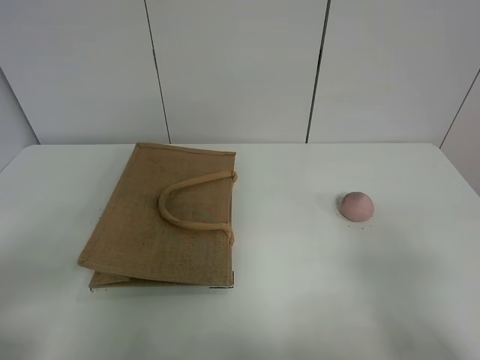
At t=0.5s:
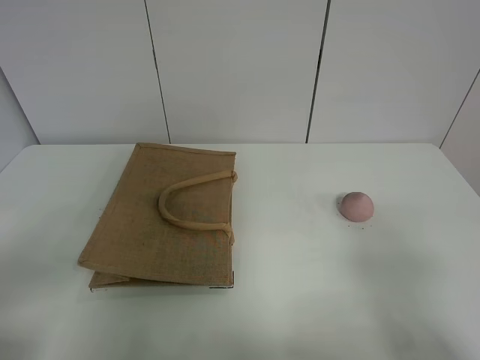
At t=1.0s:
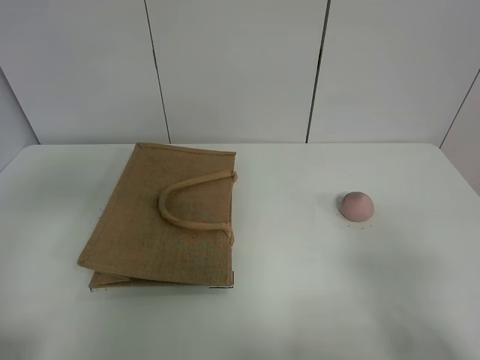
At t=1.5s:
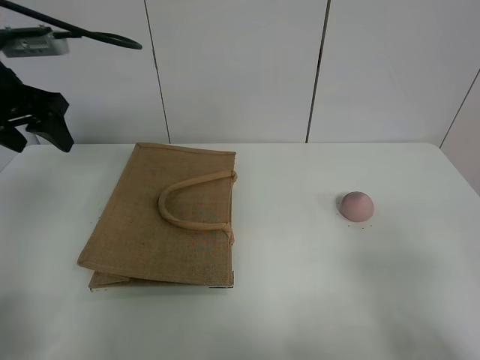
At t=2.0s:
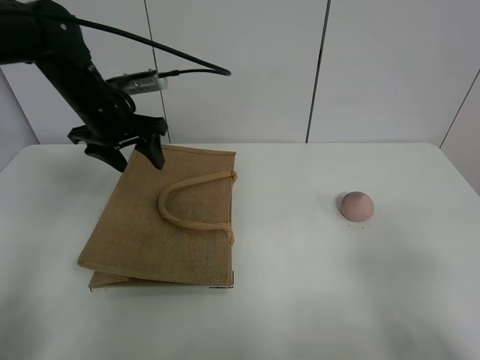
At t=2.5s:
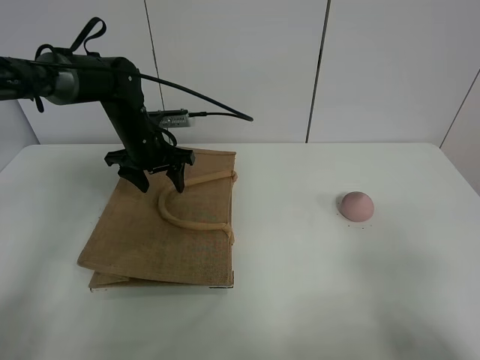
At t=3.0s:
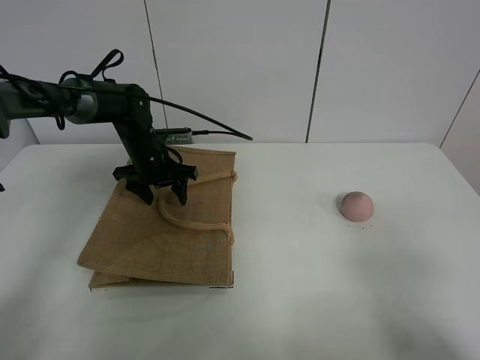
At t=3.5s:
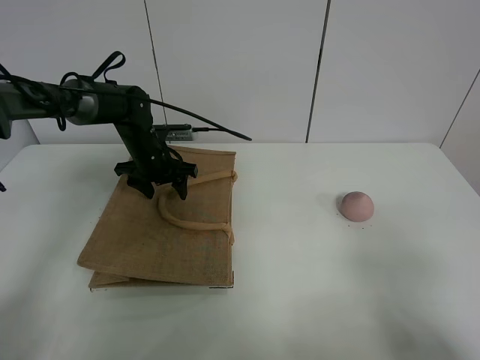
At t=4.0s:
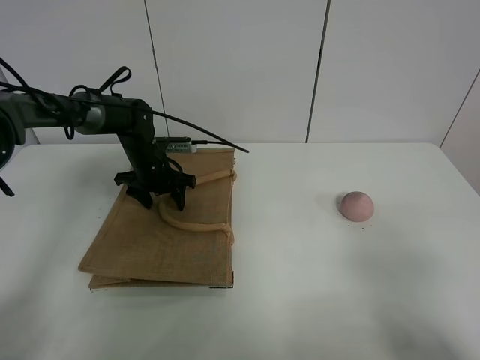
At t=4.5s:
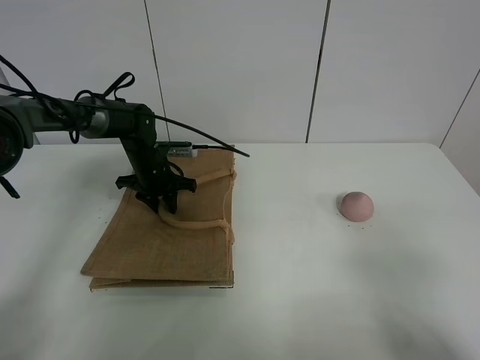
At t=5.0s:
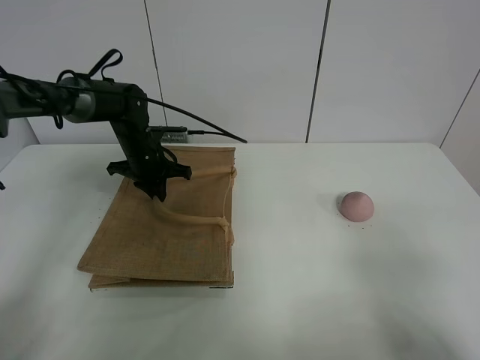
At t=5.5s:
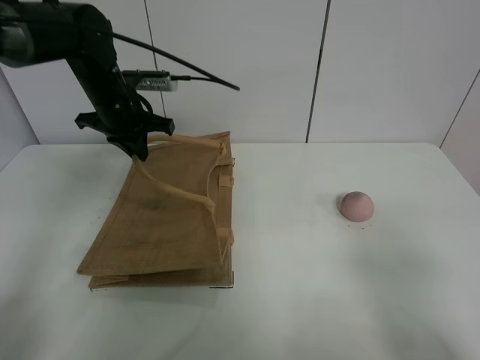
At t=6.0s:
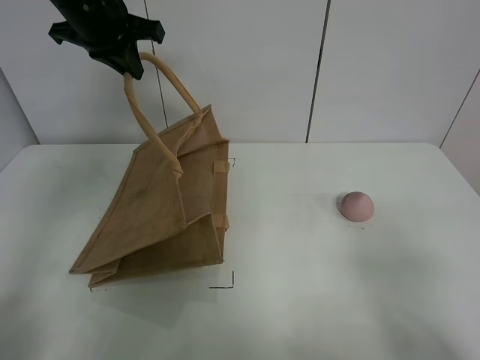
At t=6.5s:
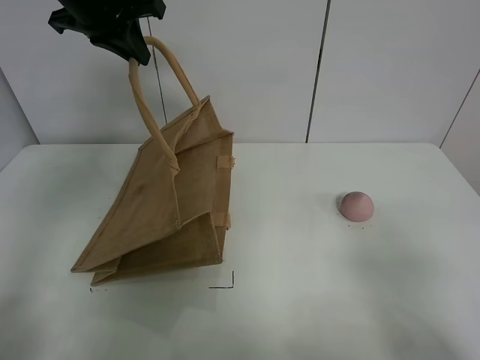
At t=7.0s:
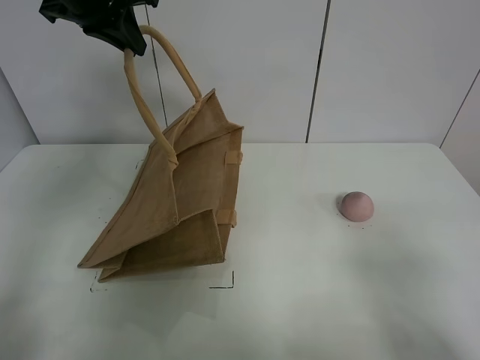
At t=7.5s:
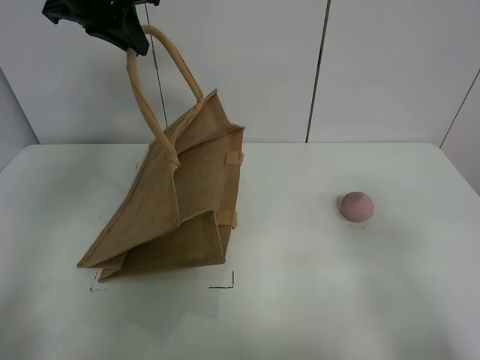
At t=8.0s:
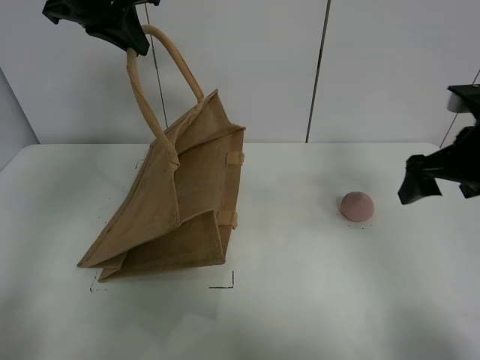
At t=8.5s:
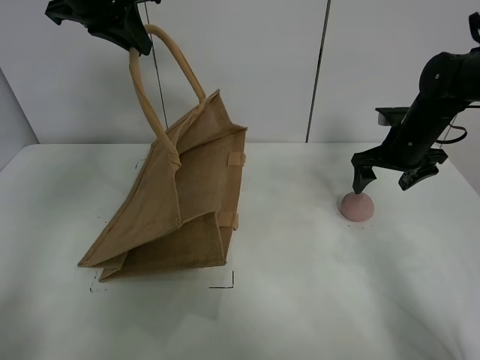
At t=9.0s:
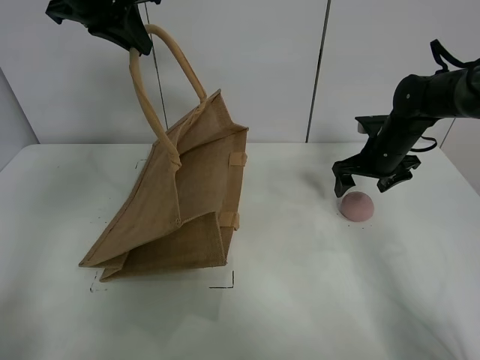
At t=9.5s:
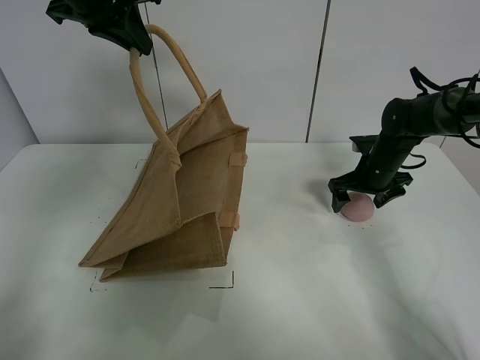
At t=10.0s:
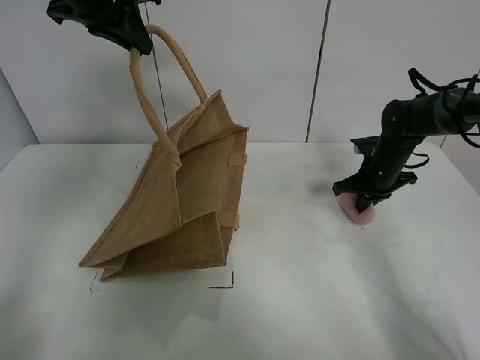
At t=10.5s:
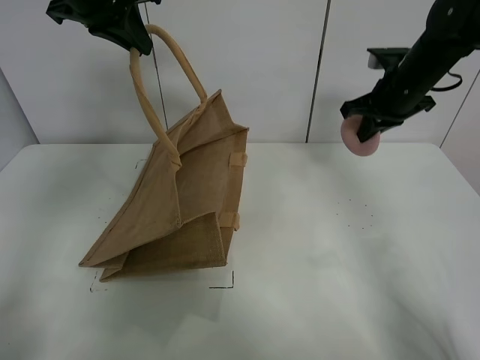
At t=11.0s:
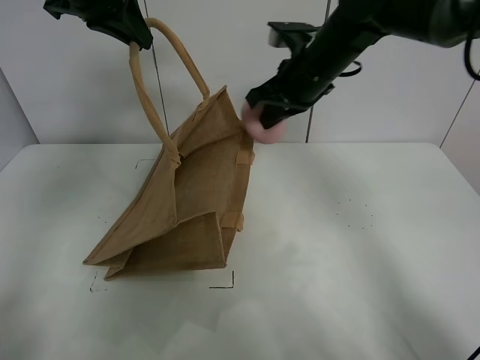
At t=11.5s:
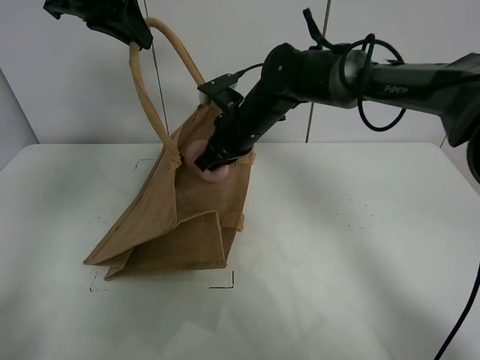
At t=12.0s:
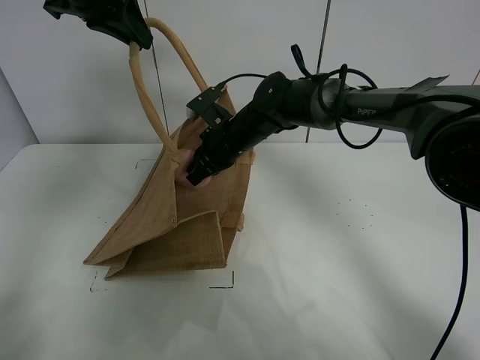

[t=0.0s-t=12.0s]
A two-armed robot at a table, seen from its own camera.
Task of the whole recording: open the brown linen bag and put the peach in the bag.
Step, t=0.0s to t=6.5s: Lift the handbag with left gripper.
Step, t=7.0s to t=10.0s: Grasp the peach with right gripper.
t=0.0s to t=2.0s: The left gripper moves forward, roughly 40 cm.
t=2.0s to t=4.0s: The left gripper shifts some 15 cm downward.
t=4.0s to t=6.0s: The left gripper goes about 30 cm upward, and closes up.
t=6.0s to t=8.0s: The right gripper heads forward, covering approximately 25 cm.
t=8.0s to t=10.0s: The right gripper goes some 25 cm forward and downward, and closes its fingers.
t=10.0s to t=12.0s: The right gripper shifts roughly 25 cm to the left.

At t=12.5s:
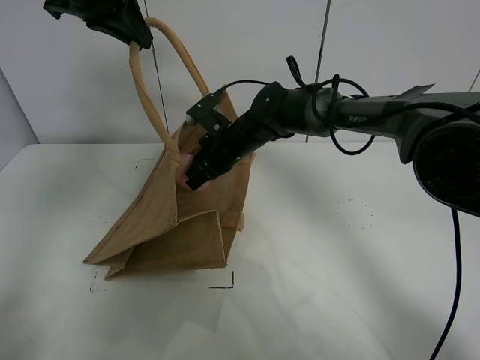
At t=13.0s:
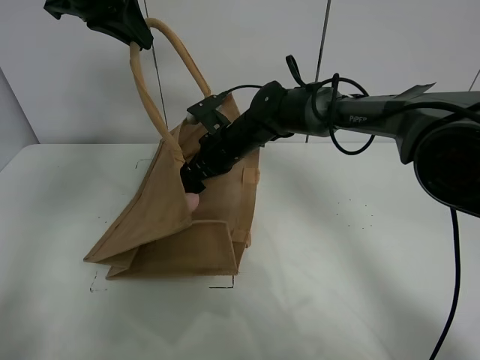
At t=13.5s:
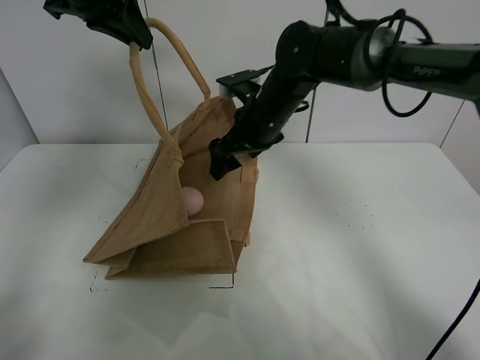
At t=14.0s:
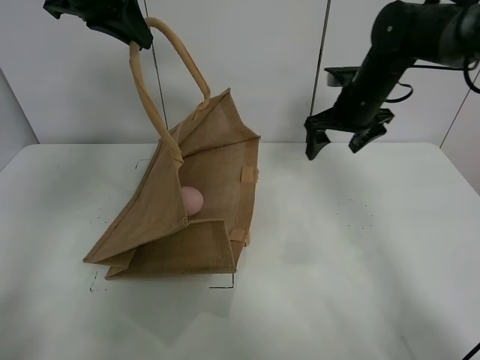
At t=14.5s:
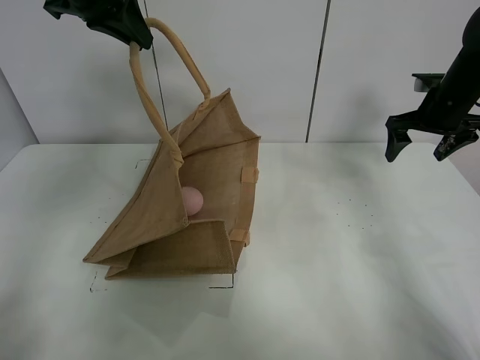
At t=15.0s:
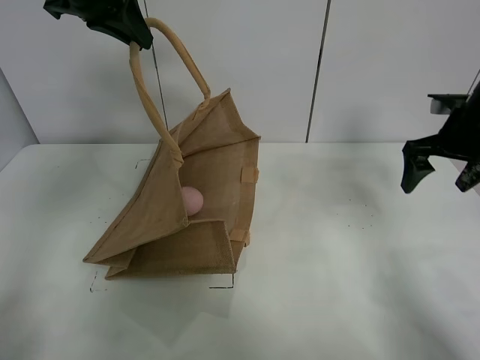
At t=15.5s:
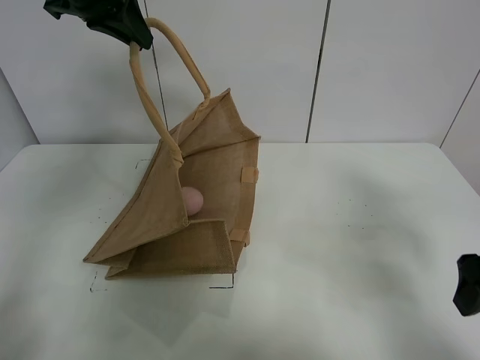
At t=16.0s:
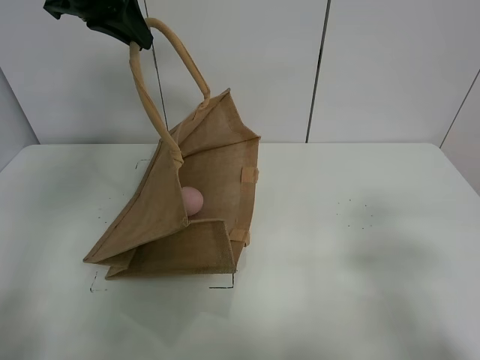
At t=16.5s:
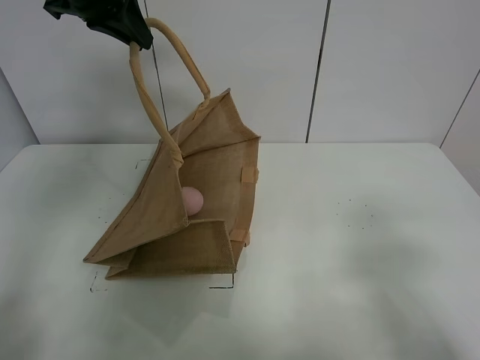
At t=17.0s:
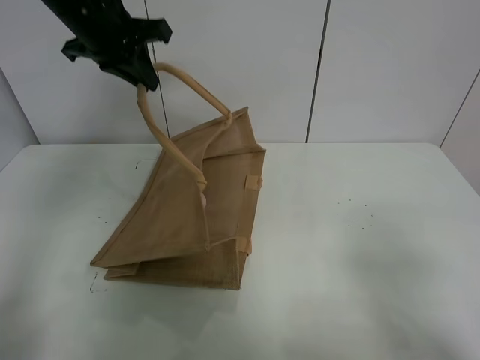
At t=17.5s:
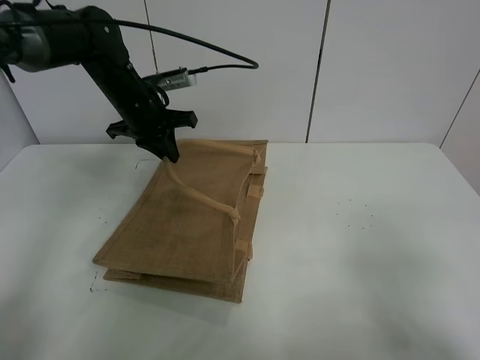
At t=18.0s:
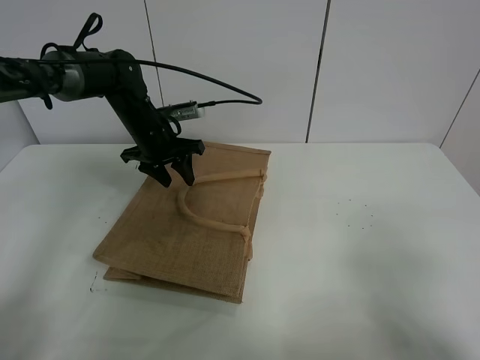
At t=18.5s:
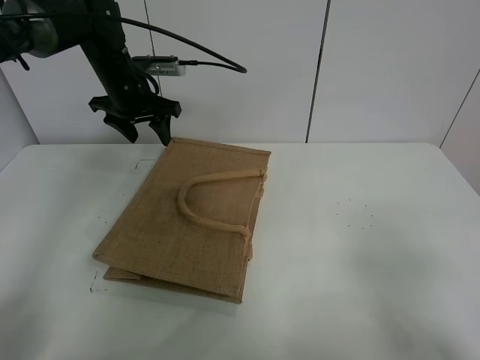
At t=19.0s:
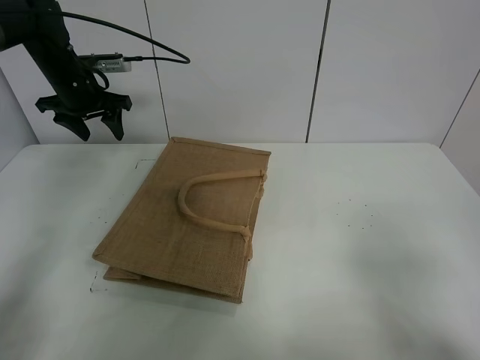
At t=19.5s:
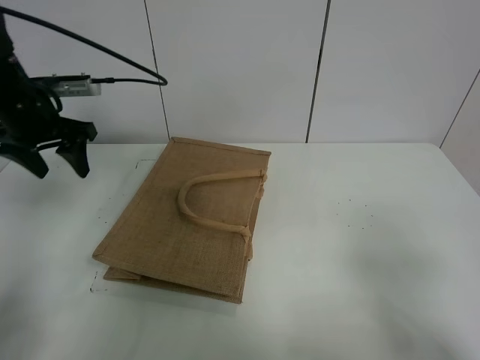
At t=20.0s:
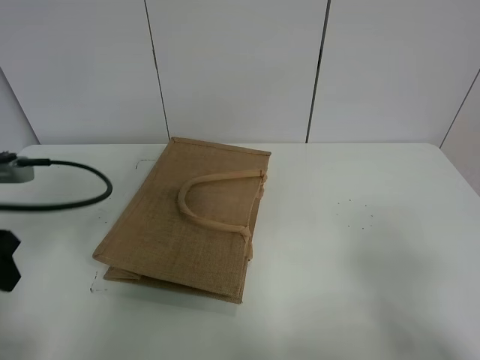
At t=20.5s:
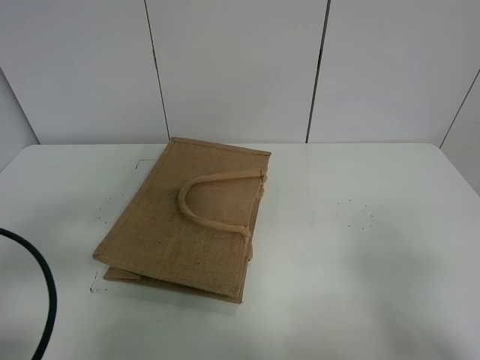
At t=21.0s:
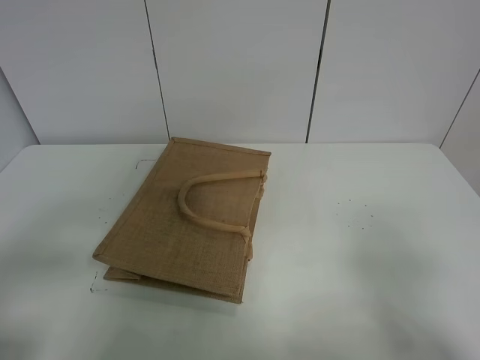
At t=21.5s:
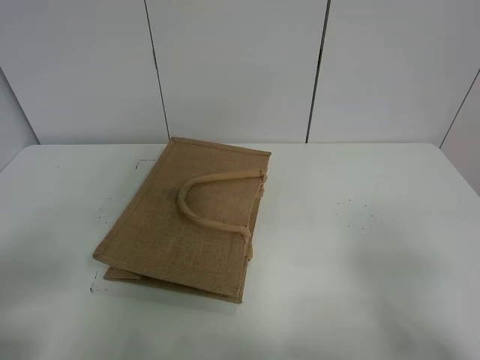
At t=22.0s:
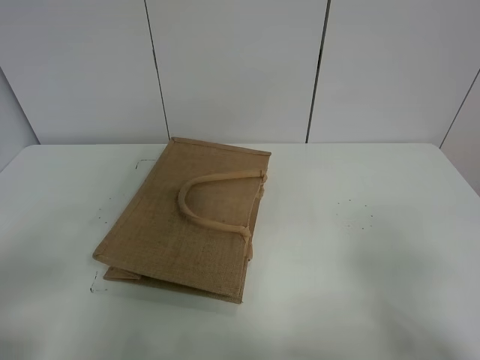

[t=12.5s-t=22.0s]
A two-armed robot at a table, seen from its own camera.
Task of the whole recording: open the brown linen bag and put the peach in the bag.
Step, t=14.0s to t=18.0s: Put down the handbag with left grippe.
t=12.5s to t=14.5s: The right gripper is displaced to the right by roughly 35 cm, and opens up.
t=14.5s to t=16.5s: The right gripper goes about 40 cm backward.
t=16.5s to t=18.0s: The left gripper goes approximately 25 cm downward, and opens.
t=18.0s to t=20.0s: The left gripper shifts roughly 30 cm backward and to the left.
t=20.0s to t=22.0s: The left gripper shifts roughly 15 cm backward.
